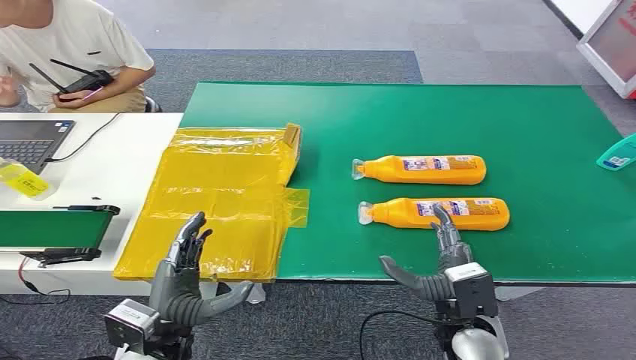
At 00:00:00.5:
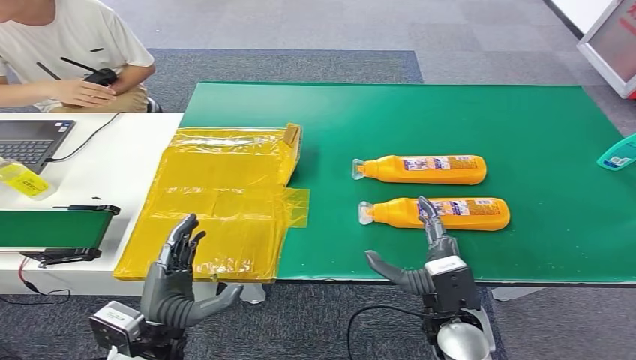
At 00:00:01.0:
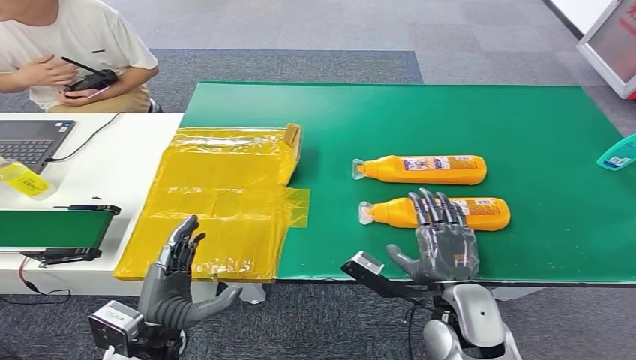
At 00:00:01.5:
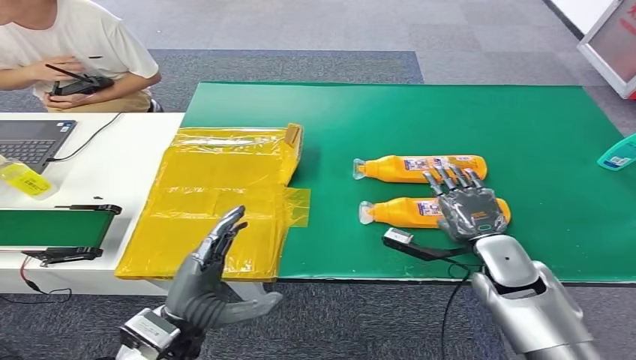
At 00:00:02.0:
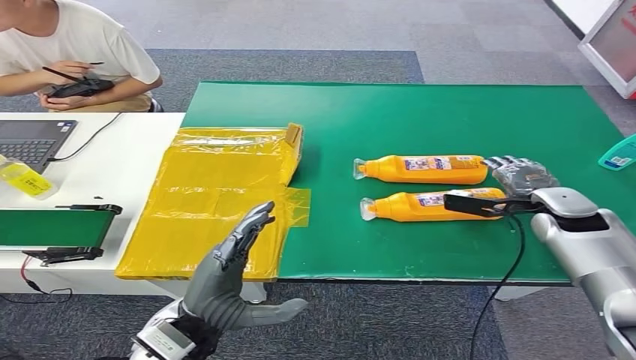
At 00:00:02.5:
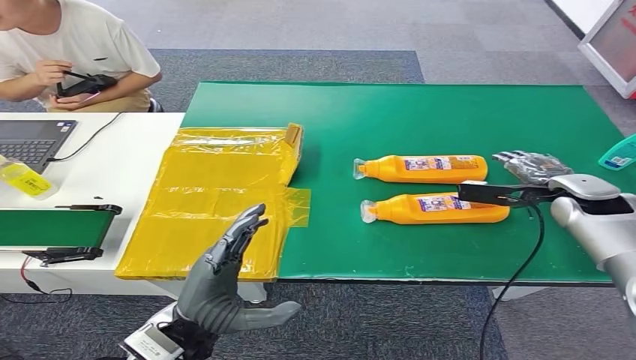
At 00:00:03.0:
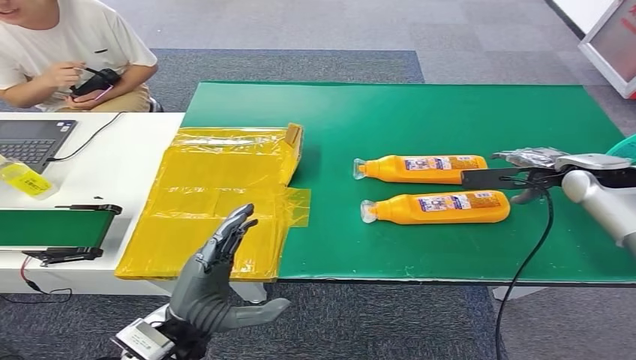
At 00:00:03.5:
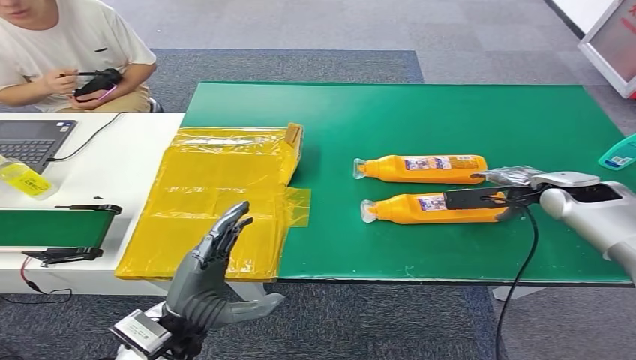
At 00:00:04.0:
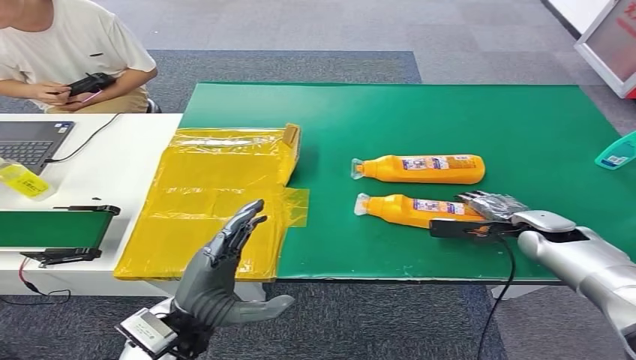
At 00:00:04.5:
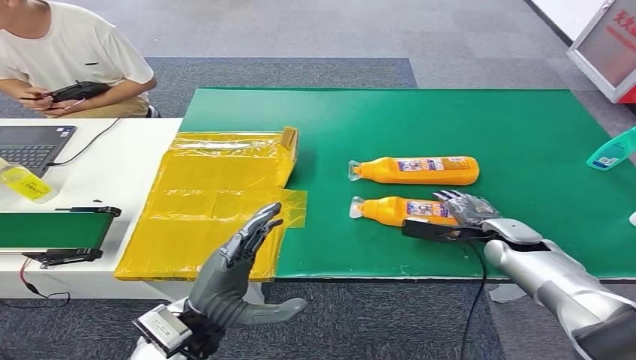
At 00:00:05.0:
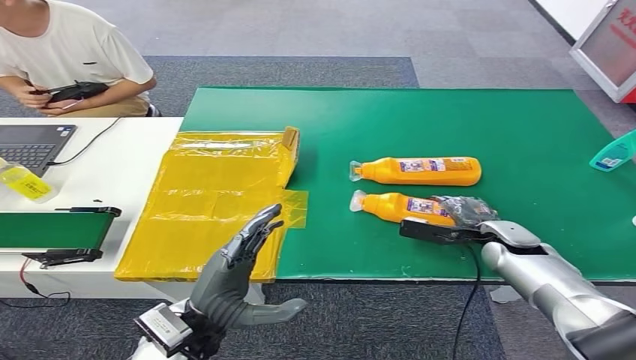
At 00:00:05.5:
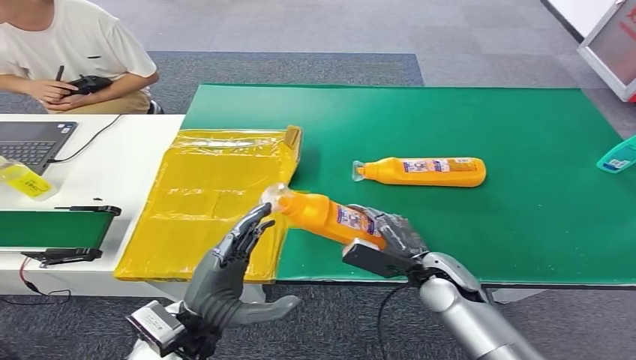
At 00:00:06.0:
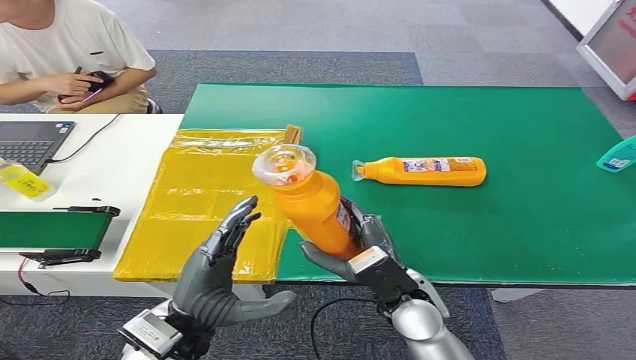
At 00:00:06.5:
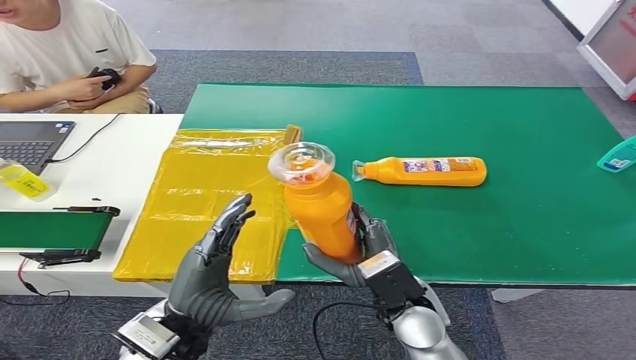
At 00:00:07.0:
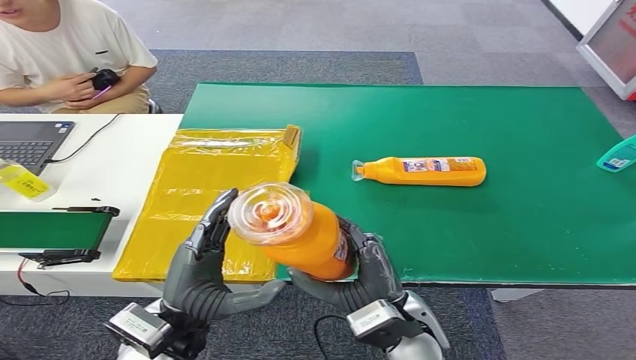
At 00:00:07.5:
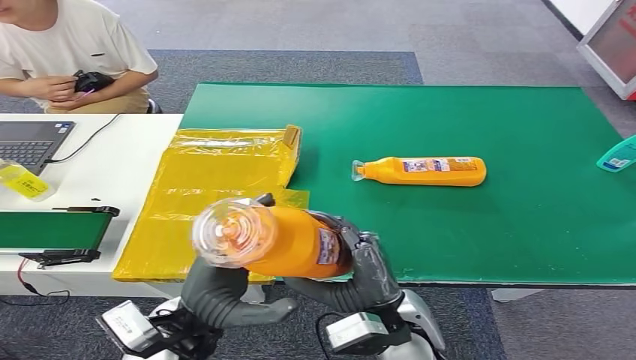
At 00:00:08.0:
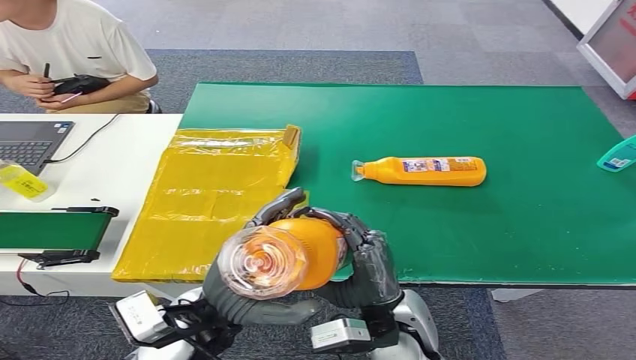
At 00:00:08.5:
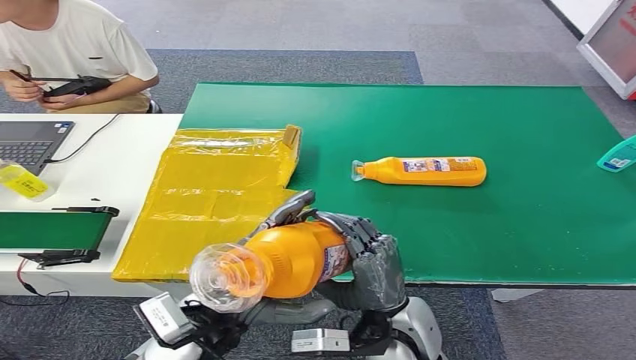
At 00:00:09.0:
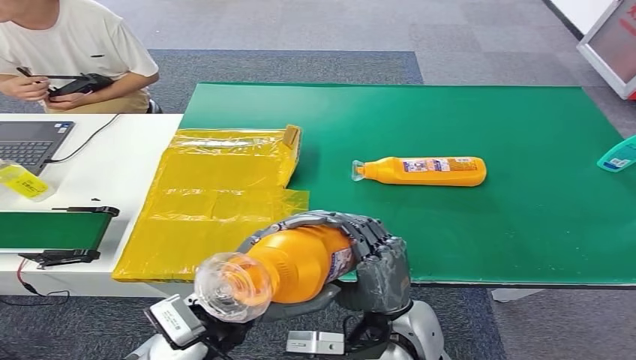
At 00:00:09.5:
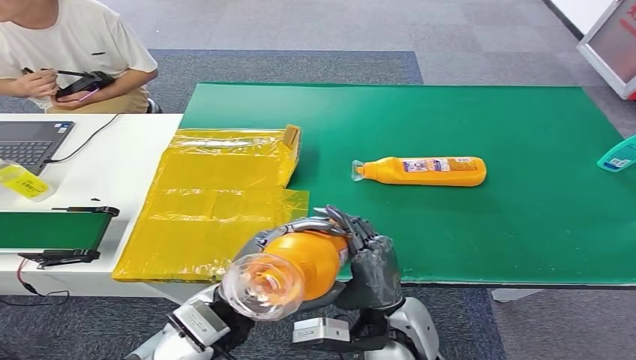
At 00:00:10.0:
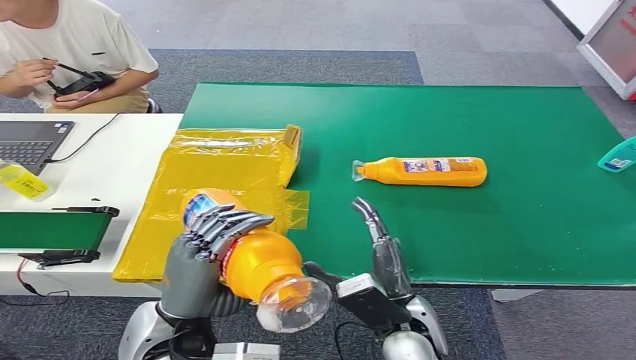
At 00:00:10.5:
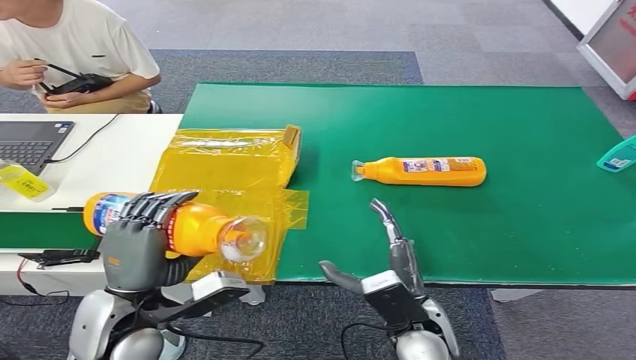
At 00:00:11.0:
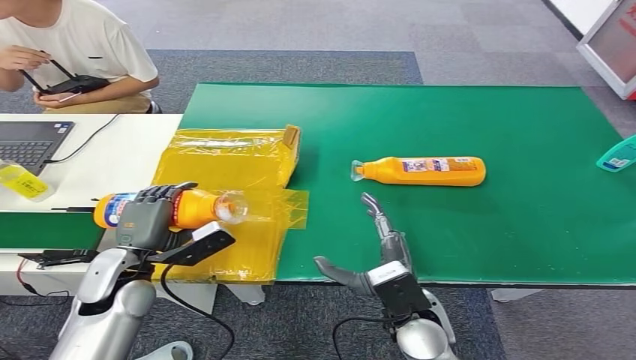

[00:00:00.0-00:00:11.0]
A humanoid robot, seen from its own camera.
Step, 00:00:00.0 to 00:00:07.0: Pick up the bottle from the table.
00:00:05.5 to 00:00:07.5: The right hand is displaced backward, to the left and upward by roughly 15 cm.
00:00:09.0 to 00:00:11.0: The left hand is displaced to the left and forward by about 15 cm.

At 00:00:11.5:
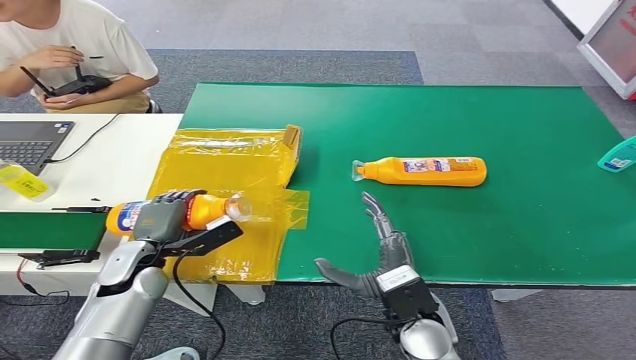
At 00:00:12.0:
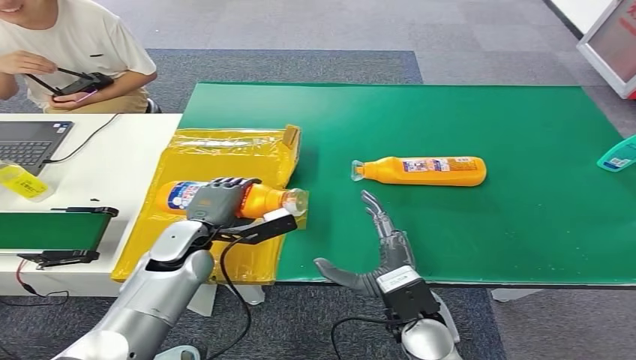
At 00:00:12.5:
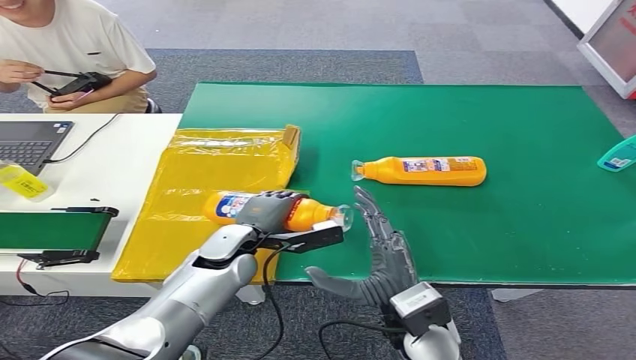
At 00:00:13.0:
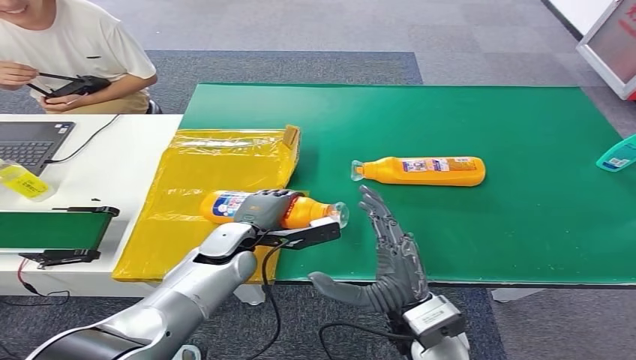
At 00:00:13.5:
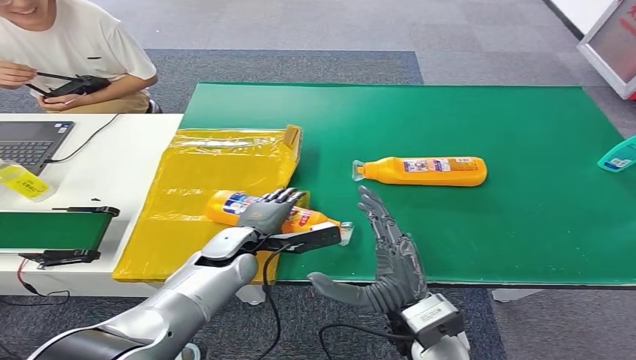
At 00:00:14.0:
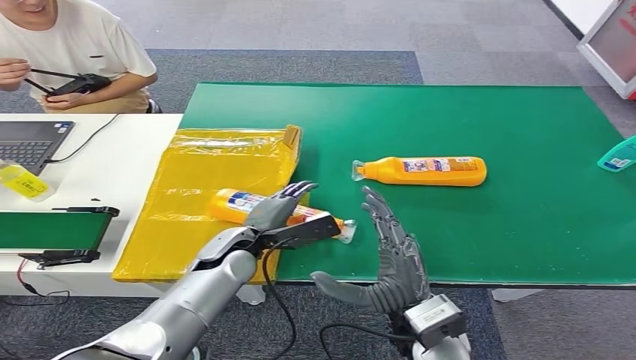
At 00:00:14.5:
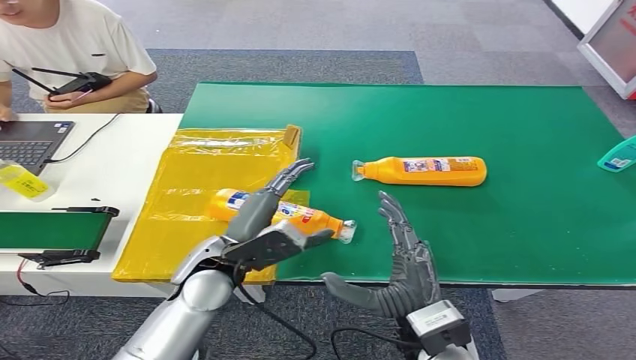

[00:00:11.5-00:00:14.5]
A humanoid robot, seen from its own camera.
Step, 00:00:11.5 to 00:00:14.5: Turn the bottle to the front side.
00:00:11.5 to 00:00:13.0: The left hand moves to the right, roughly 15 cm.
00:00:13.0 to 00:00:14.5: The left hand goes approximately 10 cm upward and backward.
